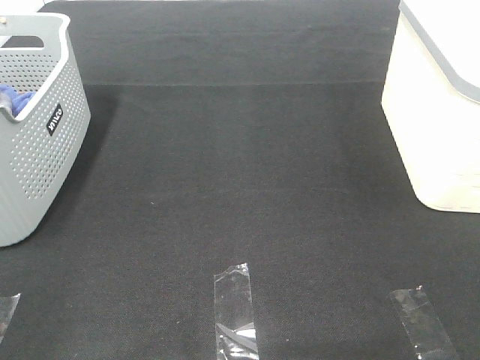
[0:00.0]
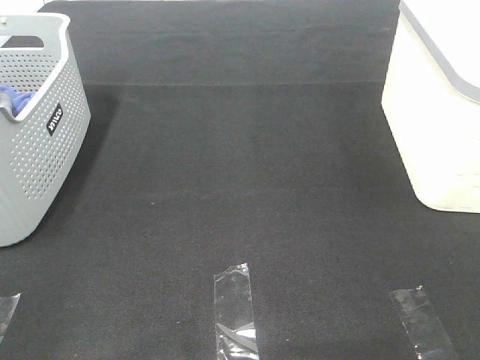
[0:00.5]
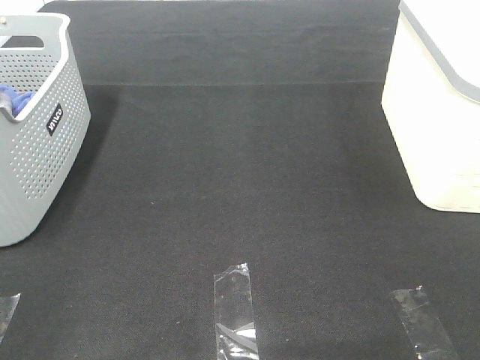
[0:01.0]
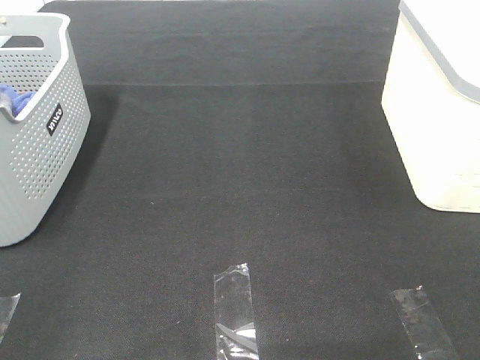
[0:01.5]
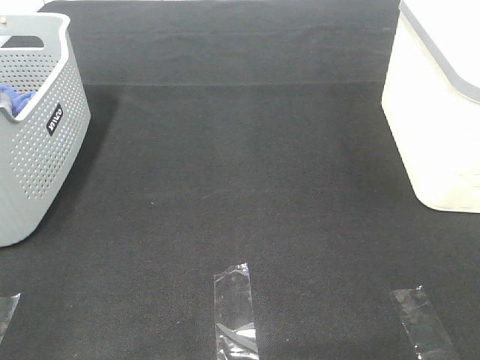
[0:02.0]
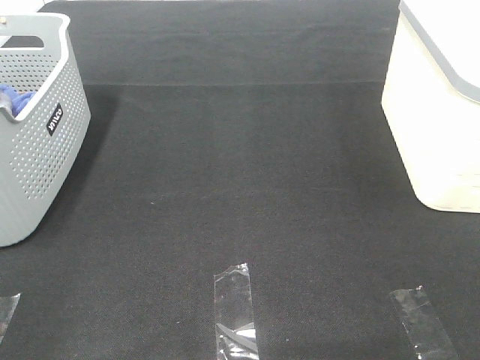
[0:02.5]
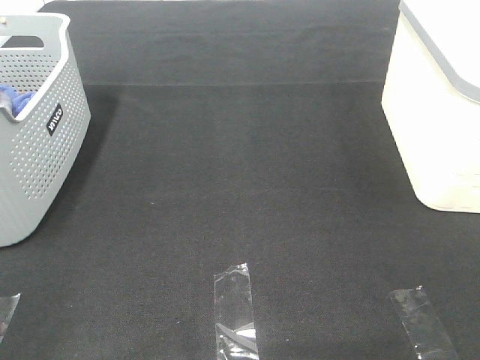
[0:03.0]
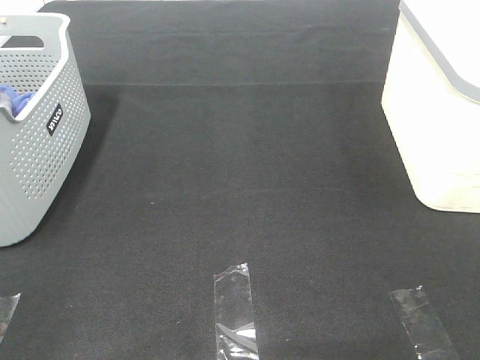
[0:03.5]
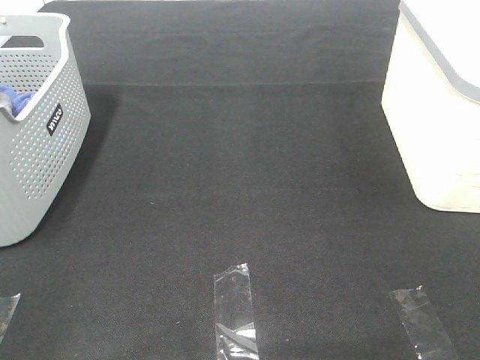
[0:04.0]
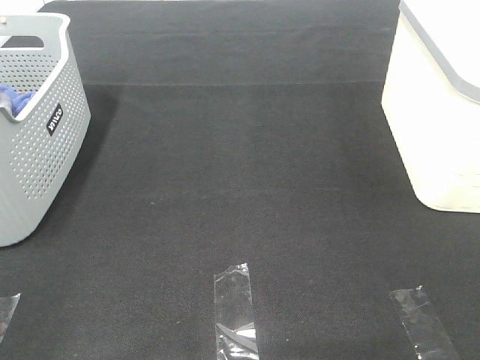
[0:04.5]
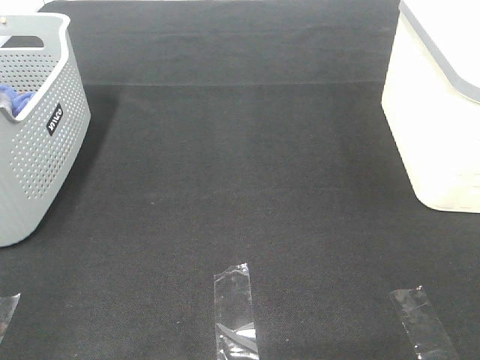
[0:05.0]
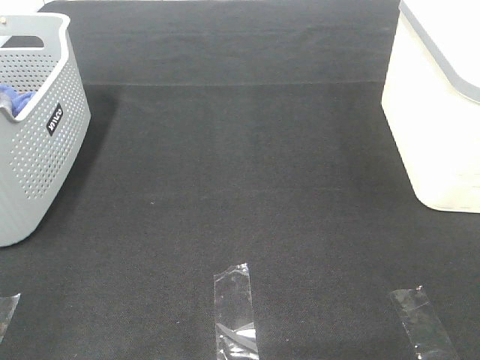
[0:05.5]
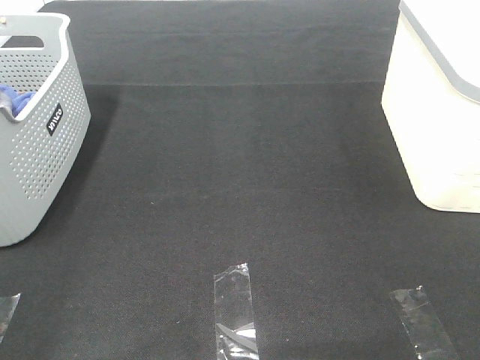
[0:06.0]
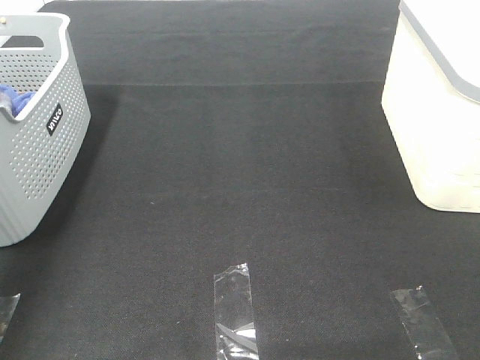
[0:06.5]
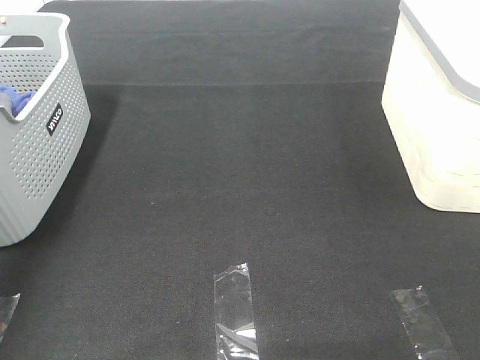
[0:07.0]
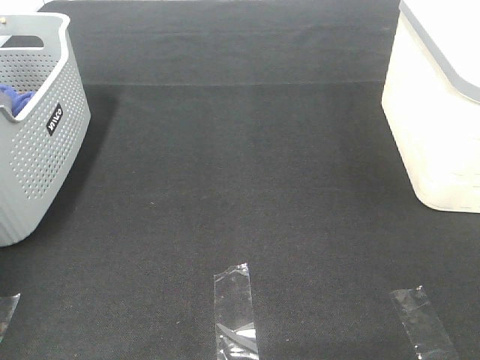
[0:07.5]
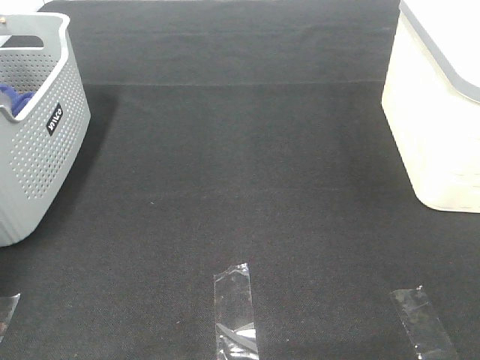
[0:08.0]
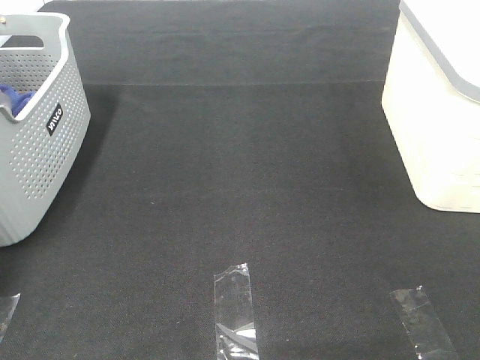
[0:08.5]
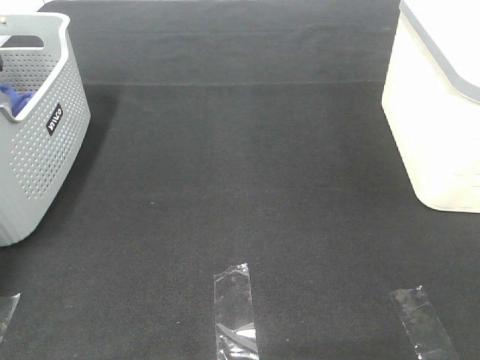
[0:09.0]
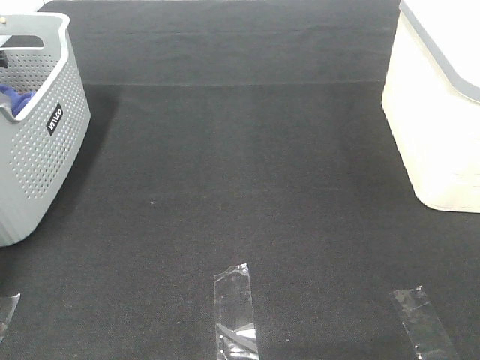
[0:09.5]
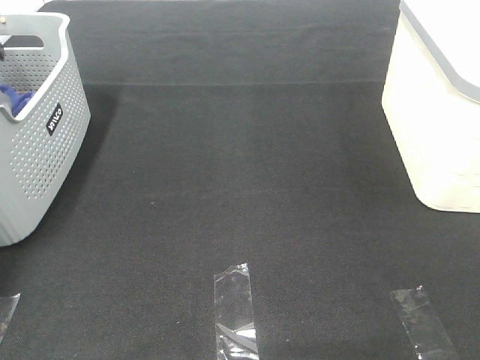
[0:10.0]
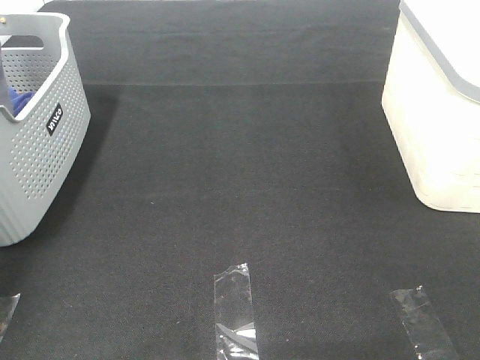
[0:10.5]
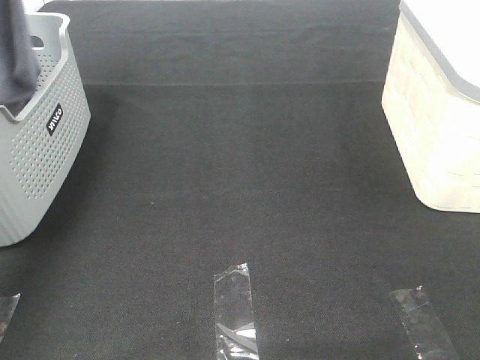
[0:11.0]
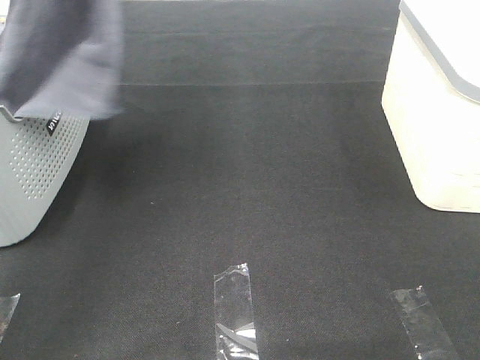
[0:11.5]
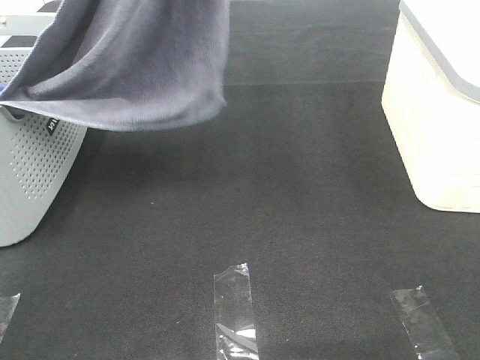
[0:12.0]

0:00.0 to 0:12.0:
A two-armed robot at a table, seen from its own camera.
Task of the whole recording: Remove the towel and place it.
0:00.0 to 0:04.0: Neither gripper changes place.
0:06.0 to 0:08.0: The left gripper moves forward, about 50 cm.
0:10.0 to 0:12.0: The left gripper moves to the right, upward and backward, some 50 cm.

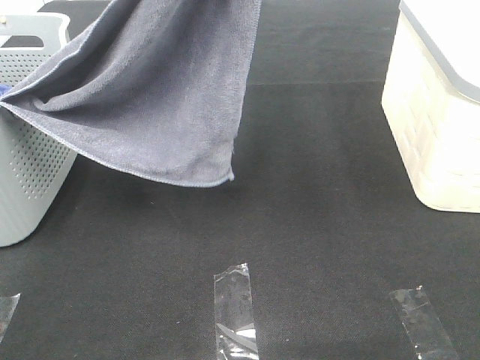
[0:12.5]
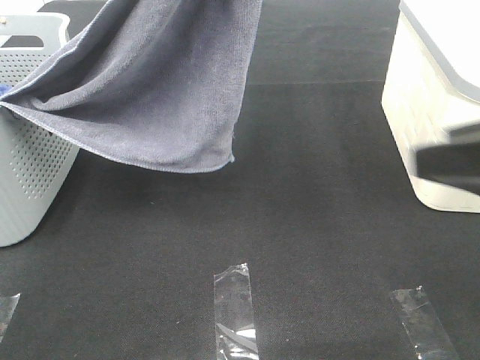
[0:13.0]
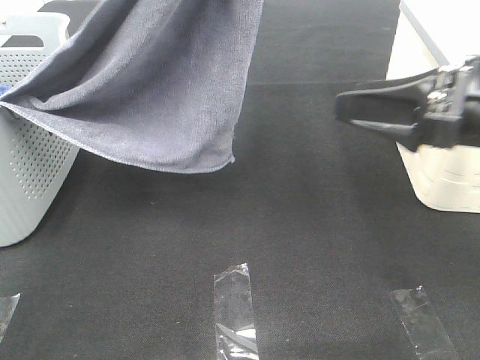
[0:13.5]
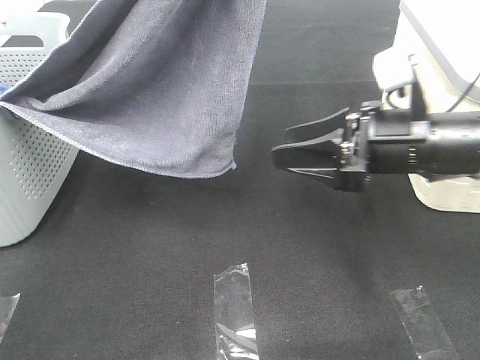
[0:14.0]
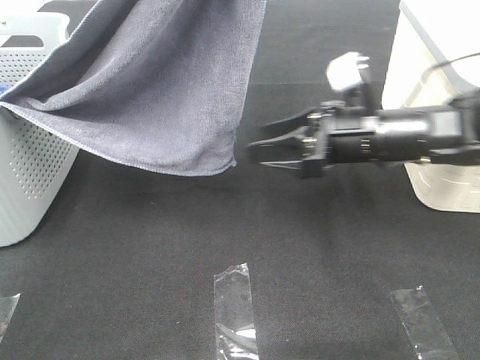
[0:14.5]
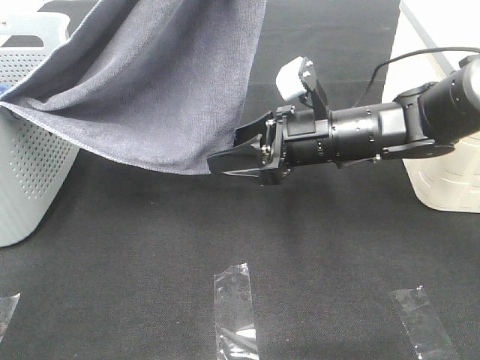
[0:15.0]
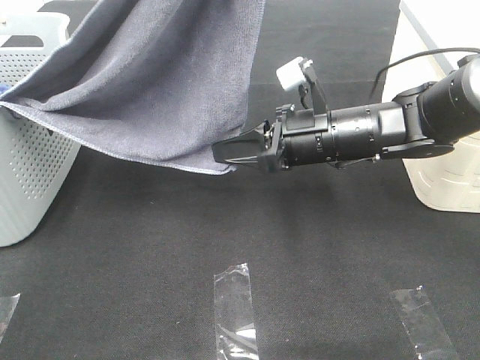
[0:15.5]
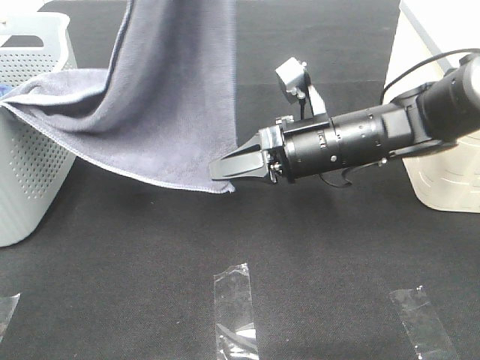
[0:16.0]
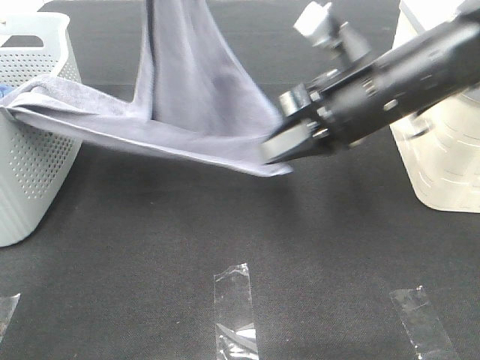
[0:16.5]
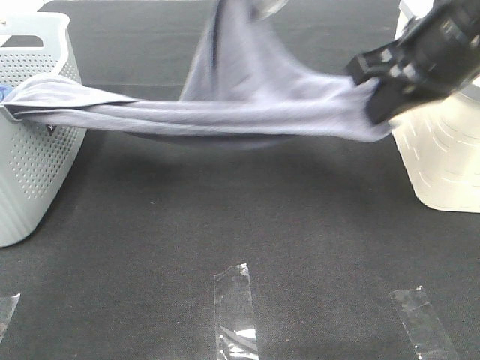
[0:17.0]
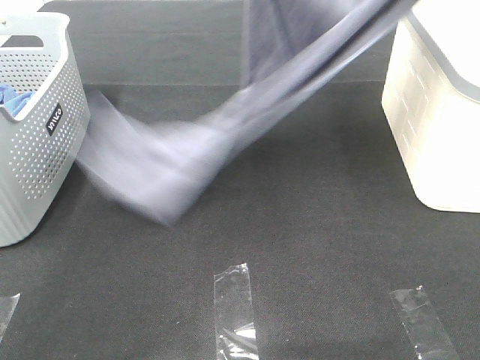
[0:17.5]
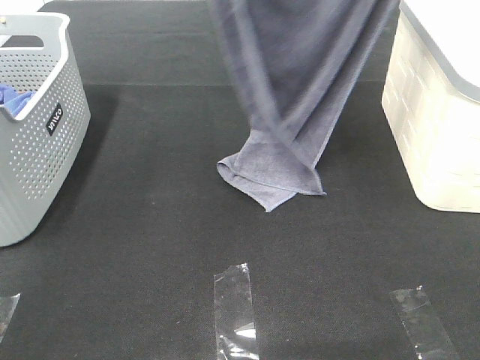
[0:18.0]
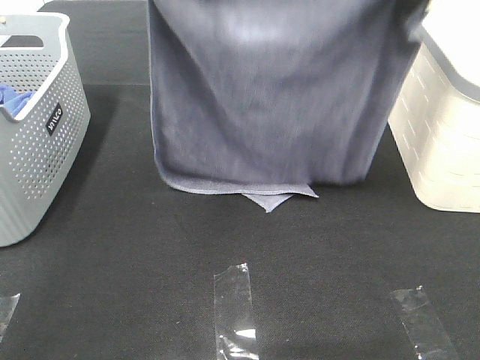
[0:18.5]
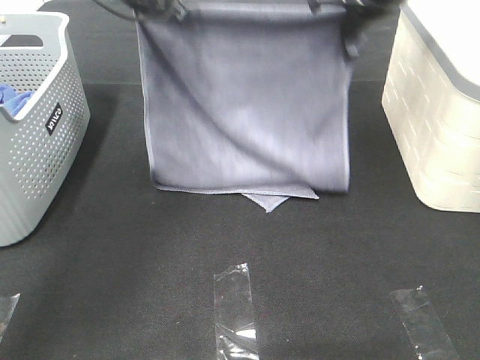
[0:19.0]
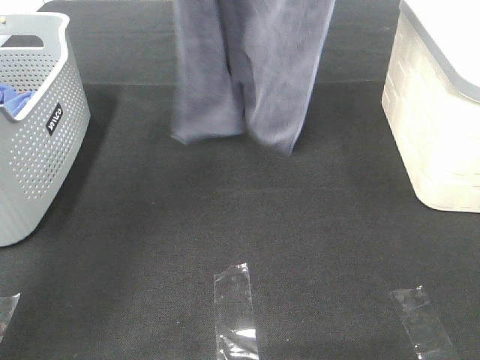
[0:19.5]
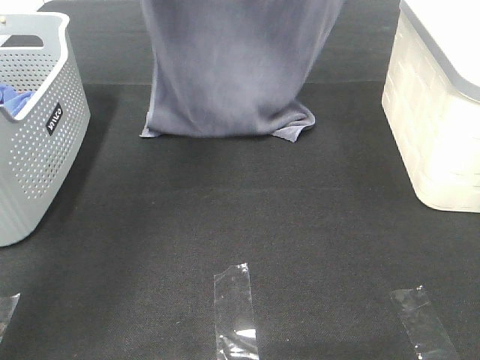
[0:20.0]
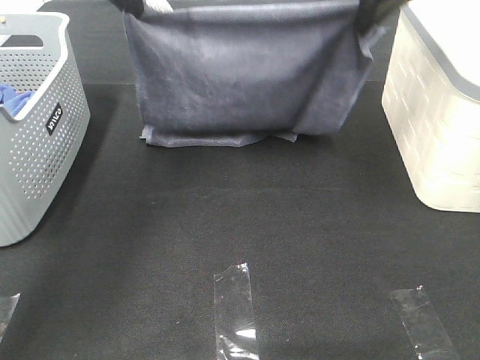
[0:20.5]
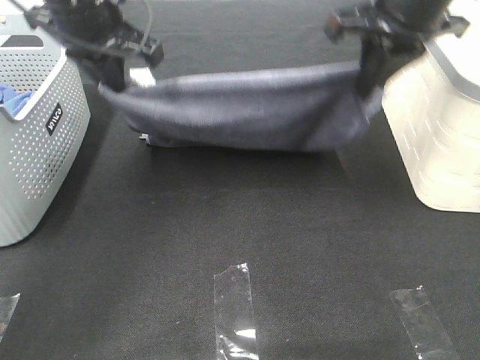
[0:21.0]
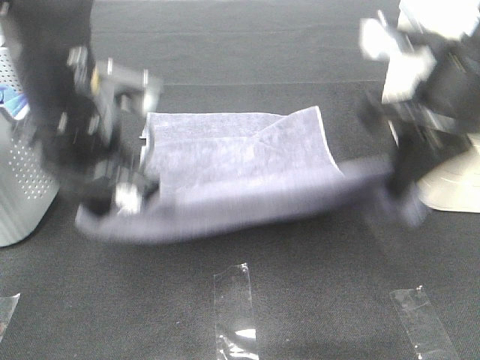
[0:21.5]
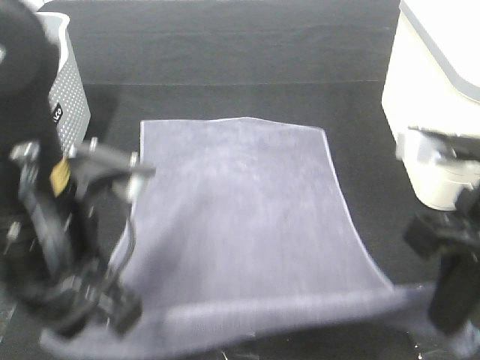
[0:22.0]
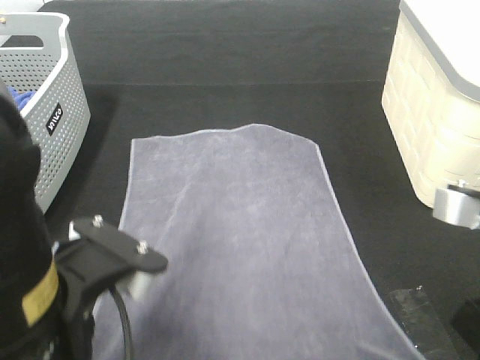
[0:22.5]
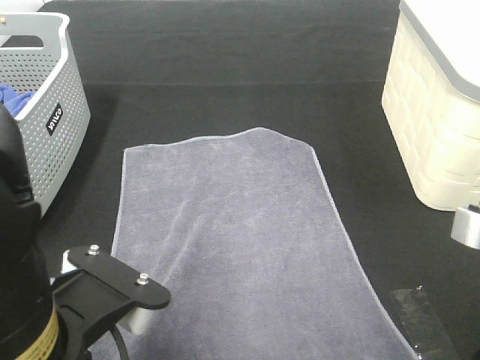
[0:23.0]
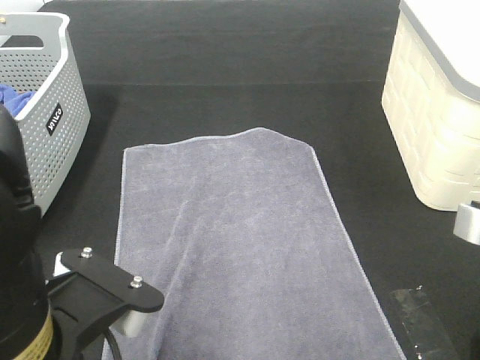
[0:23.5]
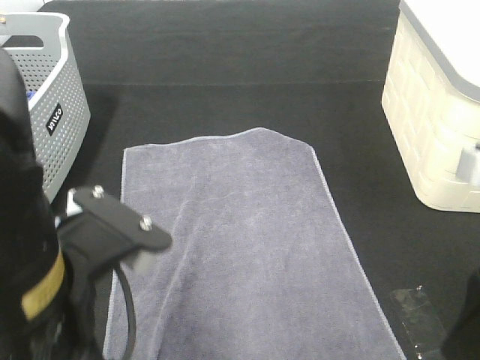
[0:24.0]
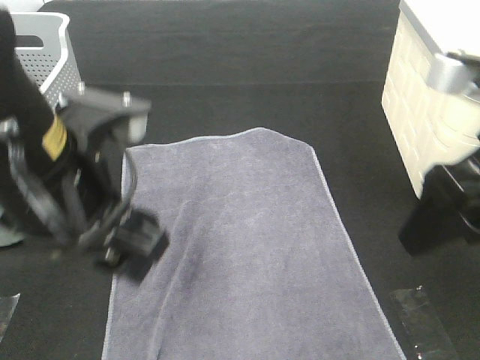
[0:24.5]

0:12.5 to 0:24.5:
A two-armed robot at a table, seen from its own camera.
Task of the whole recording: Remove the towel and place it.
Step, 0:12.5 to 0:14.5: Right hand: grab a corner of the grey towel and straighten it.
Step, 0:15.0 to 0:18.5: Left hand: spread the grey towel flat on the table.
Step, 0:15.0 to 0:18.5: Right hand: spread the grey towel flat on the table.
0:12.5 to 0:14.5: The right gripper shifts about 35 cm forward, downward and to the left.
0:14.5 to 0:16.5: The right gripper shifts some 10 cm upward, and closes up. The left gripper heads downward, covering approximately 5 cm.
0:16.5 to 0:18.5: The left gripper reaches about 10 cm upward, then returns. The right gripper moves upward, about 15 cm.
0:18.5 to 0:20.5: The right gripper moves up and down over about 20 cm, changing direction 2 times. The left gripper swings up and down, about 20 cm each way, with 2 reversals.
0:20.5 to 0:22.5: The left gripper shifts approximately 35 cm backward, while the right gripper moves backward and downward, about 30 cm.
0:22.5 to 0:24.5: The left gripper travels forward by about 10 cm, and opens its fingers; the right gripper is displaced forward and upward by about 10 cm, and opens up.

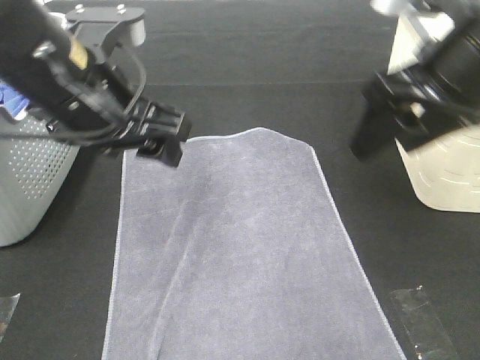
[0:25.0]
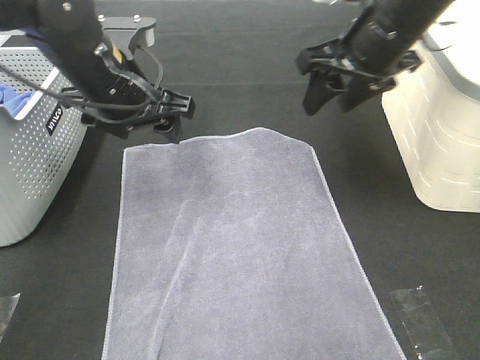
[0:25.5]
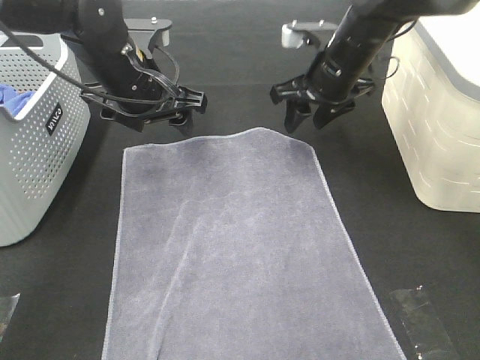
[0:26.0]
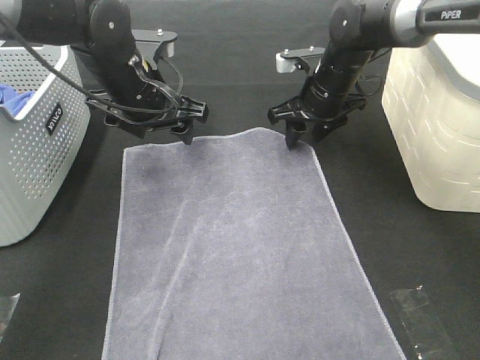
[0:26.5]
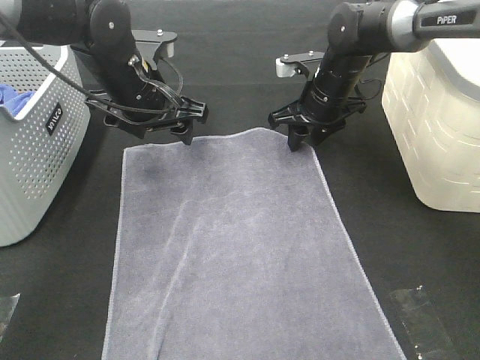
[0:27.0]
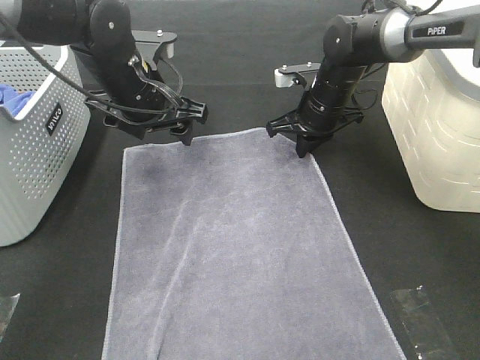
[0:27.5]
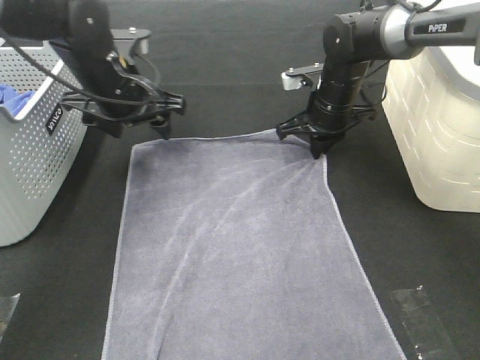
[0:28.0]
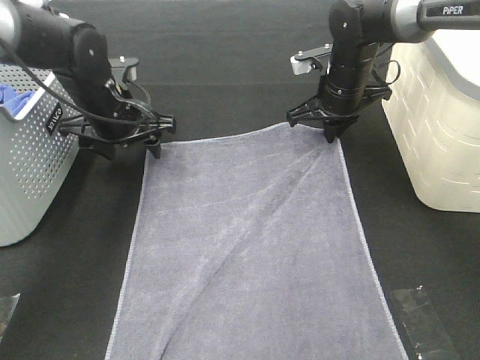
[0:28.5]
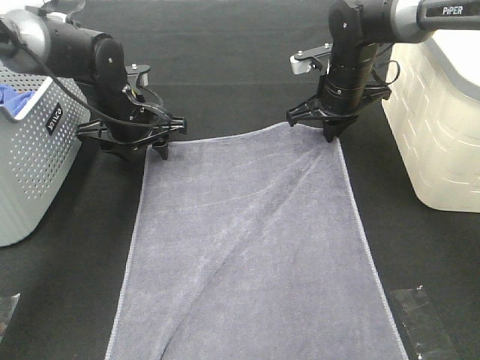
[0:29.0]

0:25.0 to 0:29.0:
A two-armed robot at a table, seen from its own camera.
Task of the whole recording: Remove the towel and place it.
0:25.0 to 0:27.0: The left gripper goes some 15 cm forward and downward. Meanwhile the right gripper goes approximately 25 cm forward and downward.
0:27.0 to 0:29.0: The left gripper heads downward, covering about 5 cm, while the right gripper closes its fingers.
